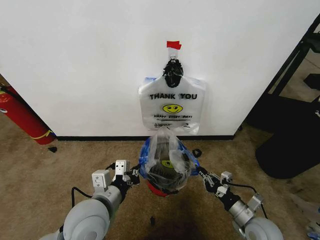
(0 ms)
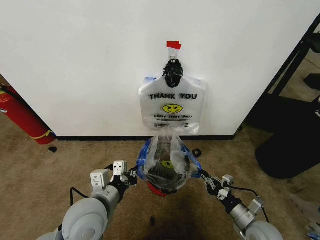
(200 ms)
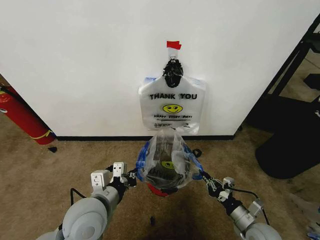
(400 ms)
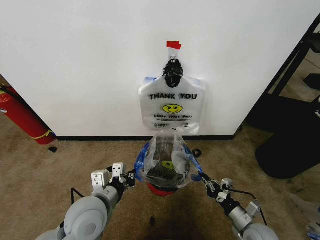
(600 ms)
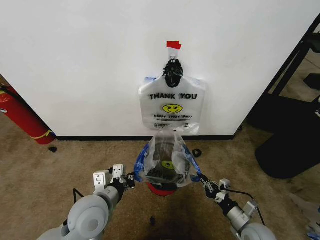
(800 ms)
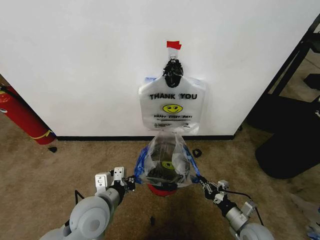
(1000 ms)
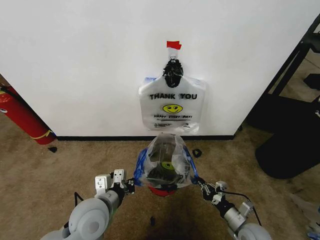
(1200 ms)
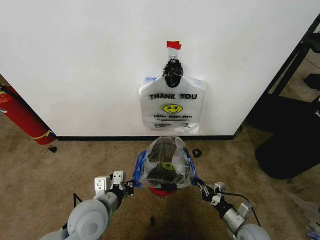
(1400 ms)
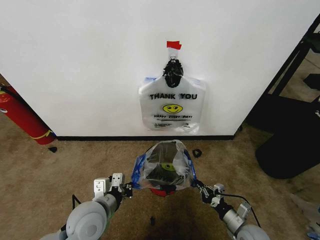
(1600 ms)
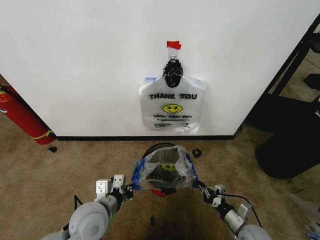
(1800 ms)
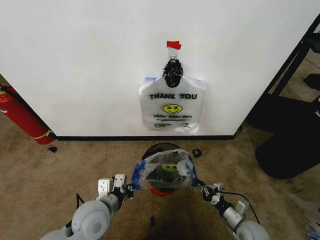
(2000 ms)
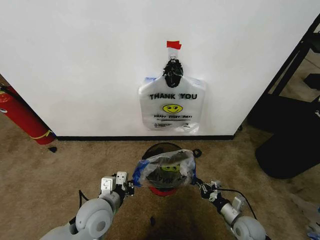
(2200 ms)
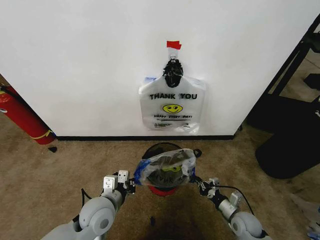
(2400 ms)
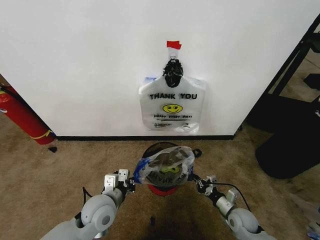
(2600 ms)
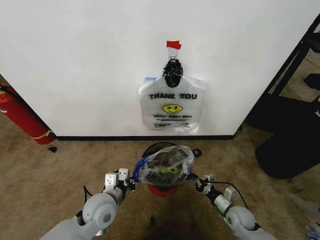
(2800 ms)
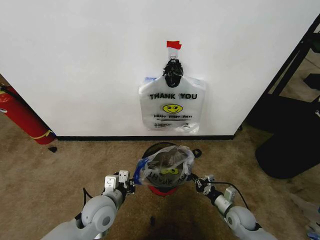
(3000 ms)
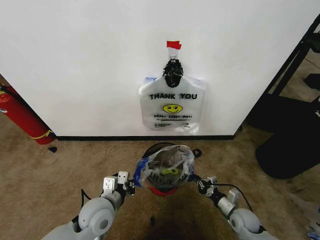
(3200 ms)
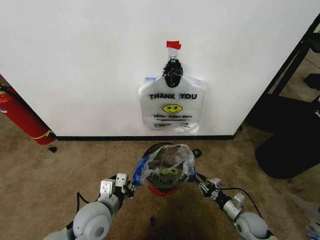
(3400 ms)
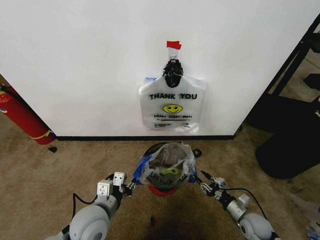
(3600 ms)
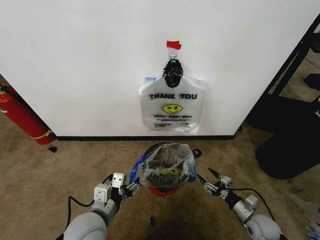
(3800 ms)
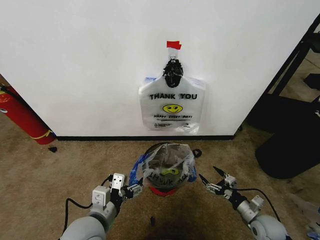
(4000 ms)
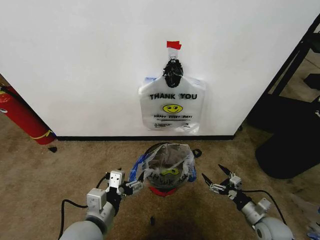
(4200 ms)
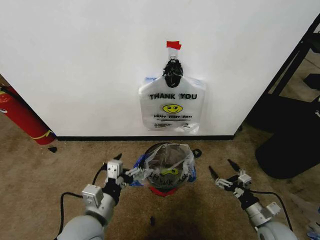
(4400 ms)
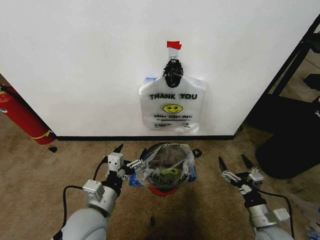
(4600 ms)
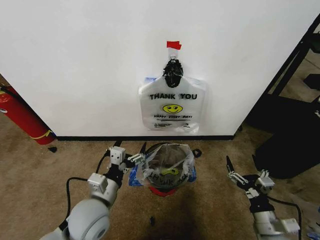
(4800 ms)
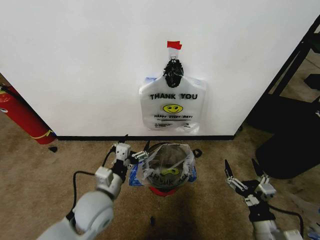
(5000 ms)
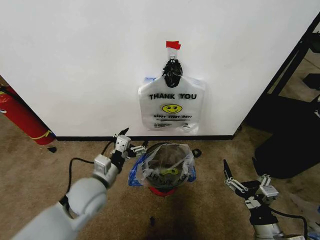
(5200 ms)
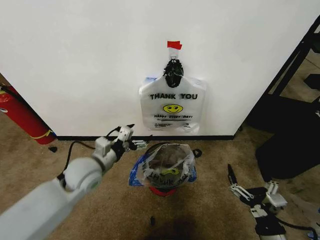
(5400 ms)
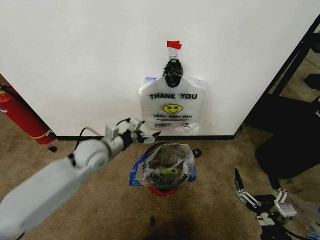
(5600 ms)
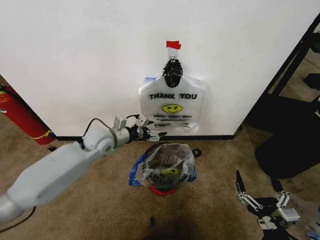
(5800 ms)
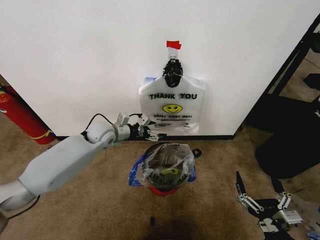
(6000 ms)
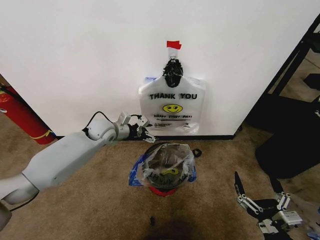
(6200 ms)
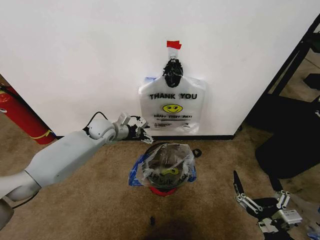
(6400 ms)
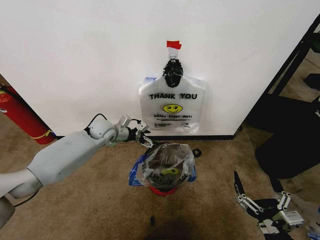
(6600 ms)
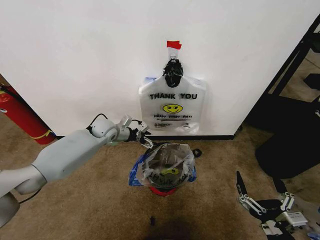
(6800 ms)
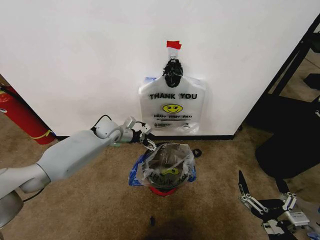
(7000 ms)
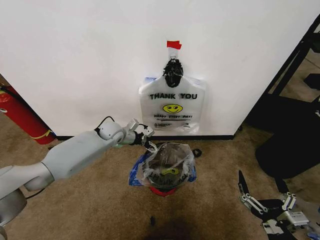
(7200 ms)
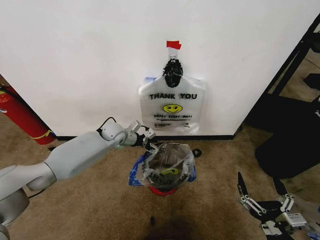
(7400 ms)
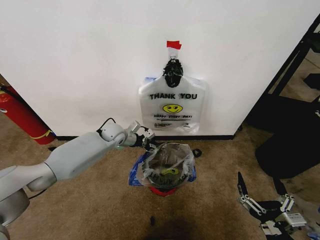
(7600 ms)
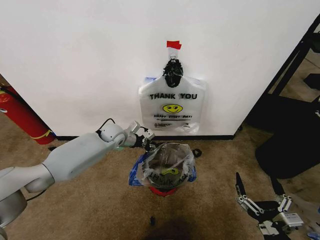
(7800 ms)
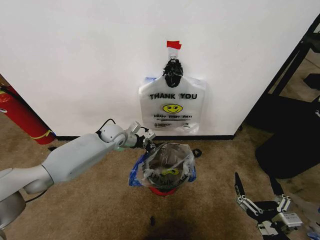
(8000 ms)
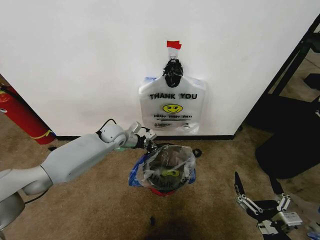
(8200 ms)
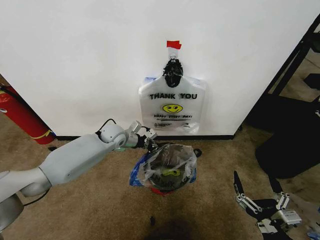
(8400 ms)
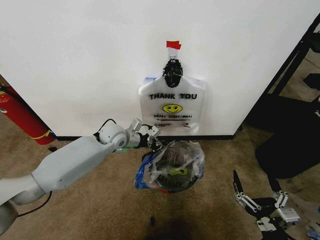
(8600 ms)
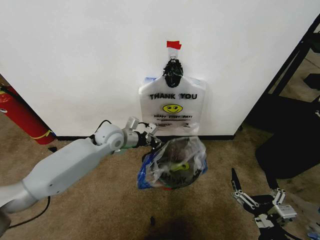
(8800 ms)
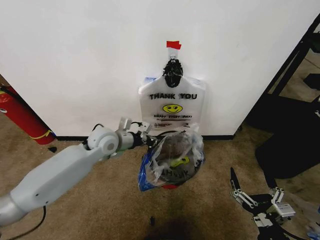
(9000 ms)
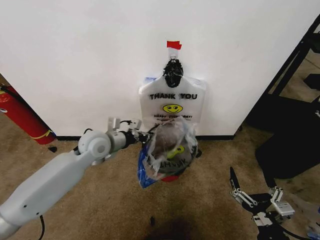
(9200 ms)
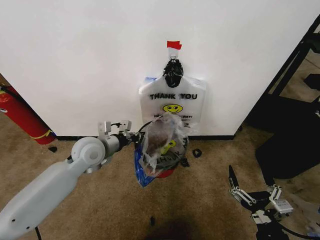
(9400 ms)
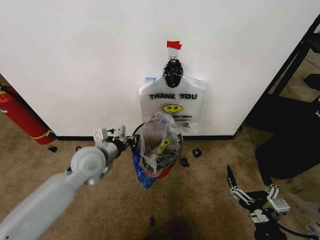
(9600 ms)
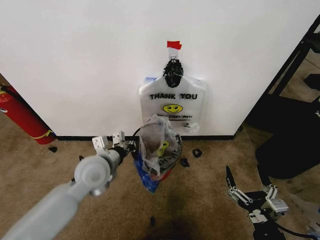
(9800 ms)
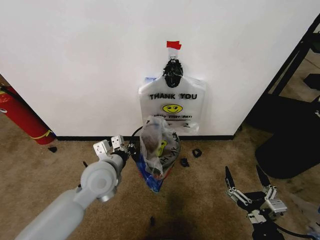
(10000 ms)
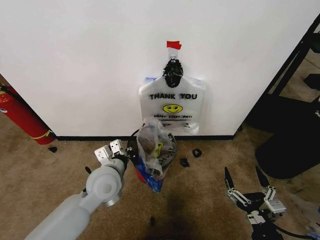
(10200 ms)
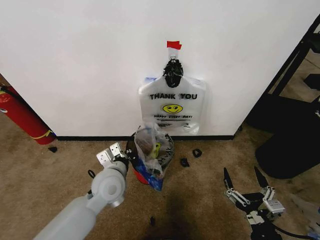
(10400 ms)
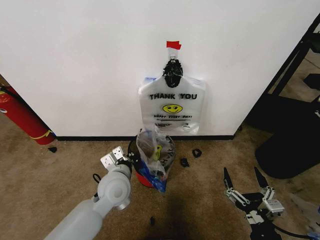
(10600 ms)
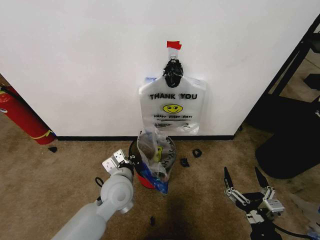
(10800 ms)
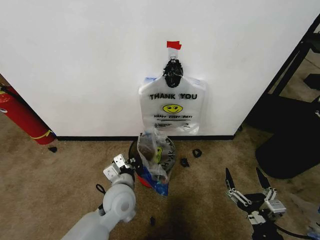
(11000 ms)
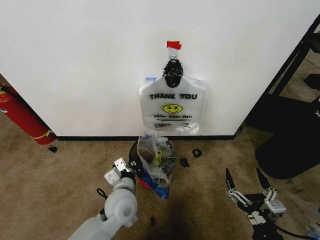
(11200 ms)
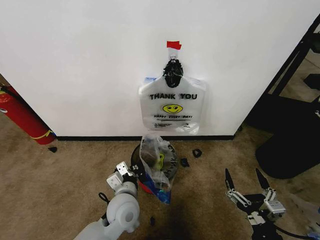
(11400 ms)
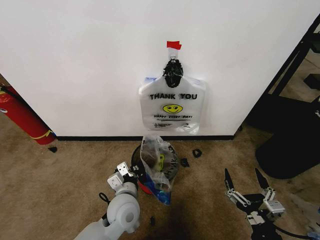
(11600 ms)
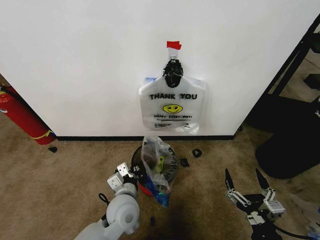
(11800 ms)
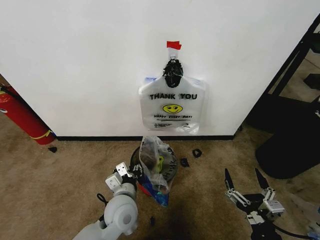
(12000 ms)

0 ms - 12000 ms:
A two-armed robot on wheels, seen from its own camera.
Task of the whole recording: Pick up the garbage bag from the wall and place it over the trash bin.
0 ms - 1600 ms: The grippers both shift downward by approximately 5 cm.
1600 ms - 3000 ms: The left gripper moves some 5 cm; the right gripper travels forward by approximately 5 cm.
3000 ms - 4400 ms: The left gripper is displaced backward and upward by approximately 10 cm, and opens its fingers. Meanwhile the right gripper goes some 10 cm upward, backward and to the right, and opens its fingers.
4400 ms - 6000 ms: The right gripper goes about 20 cm backward, upward and to the left. The left gripper is displaced forward by some 30 cm.
6000 ms - 7600 ms: The left gripper shifts roughly 10 cm forward and downward, and closes up.
7600 ms - 9000 ms: The left gripper goes approximately 15 cm backward and upward, and closes its fingers.
9000 ms - 10400 ms: The left gripper is displaced backward and downward by some 15 cm.
10400 ms - 12000 ms: The left gripper is displaced backward and downward by some 10 cm, and opens its fingers.

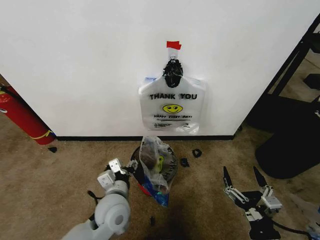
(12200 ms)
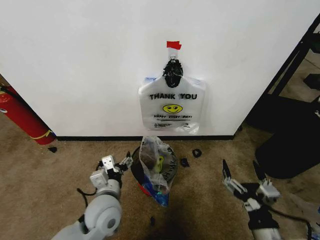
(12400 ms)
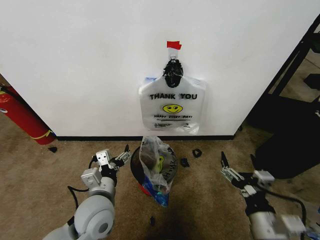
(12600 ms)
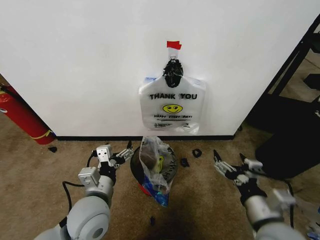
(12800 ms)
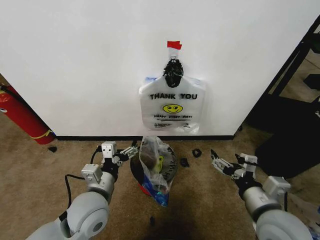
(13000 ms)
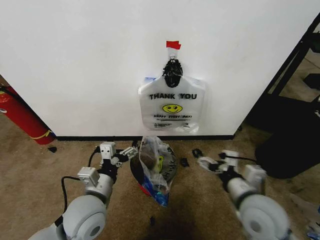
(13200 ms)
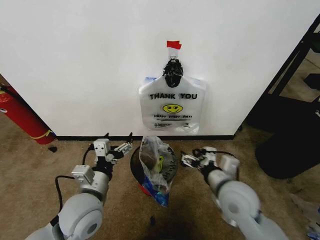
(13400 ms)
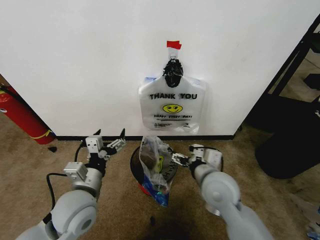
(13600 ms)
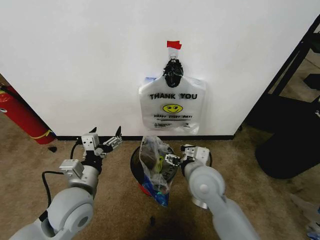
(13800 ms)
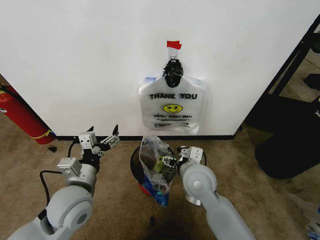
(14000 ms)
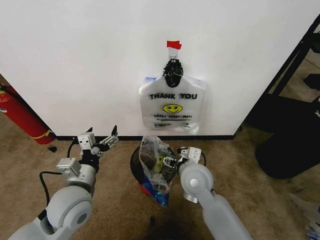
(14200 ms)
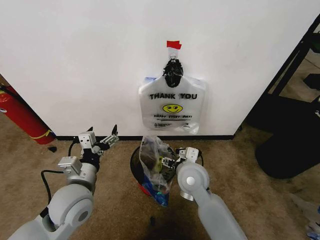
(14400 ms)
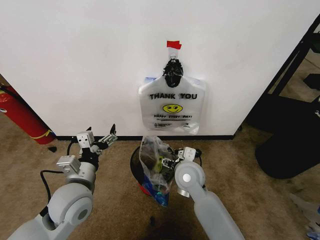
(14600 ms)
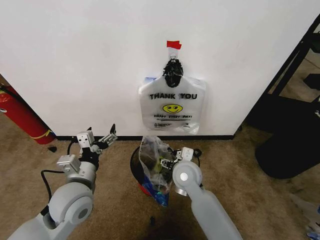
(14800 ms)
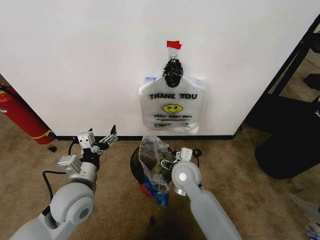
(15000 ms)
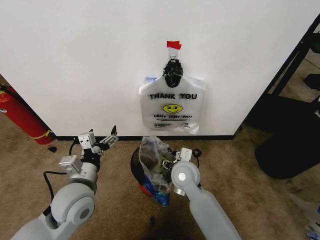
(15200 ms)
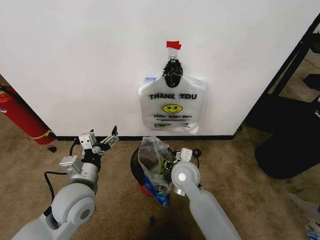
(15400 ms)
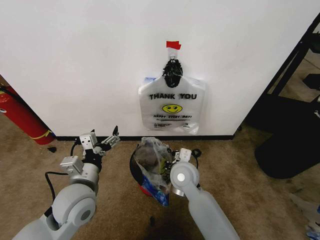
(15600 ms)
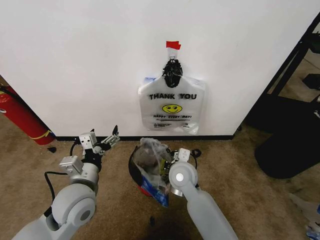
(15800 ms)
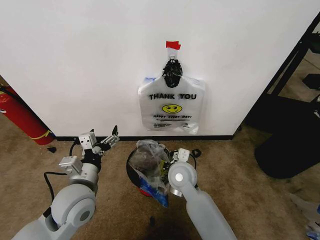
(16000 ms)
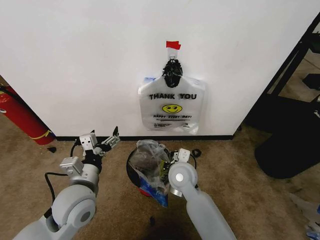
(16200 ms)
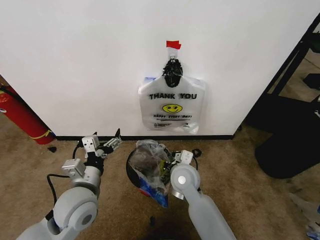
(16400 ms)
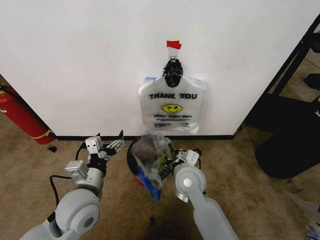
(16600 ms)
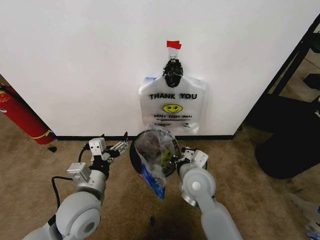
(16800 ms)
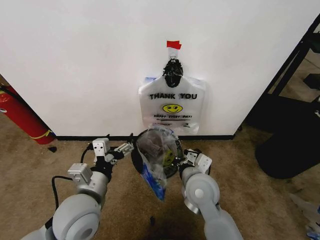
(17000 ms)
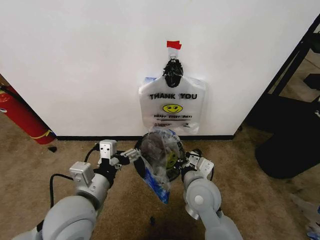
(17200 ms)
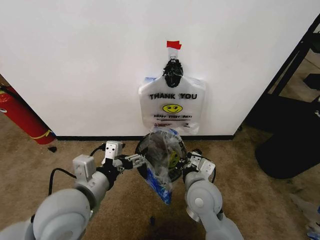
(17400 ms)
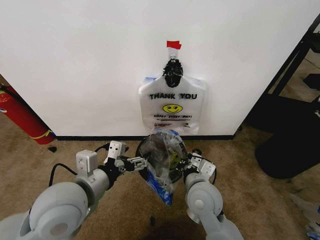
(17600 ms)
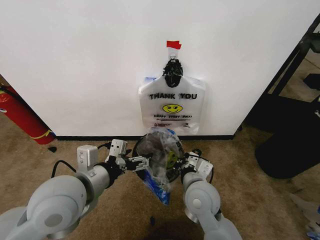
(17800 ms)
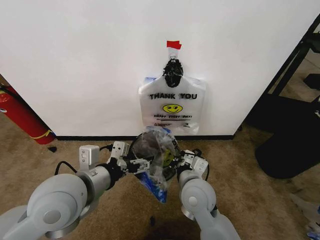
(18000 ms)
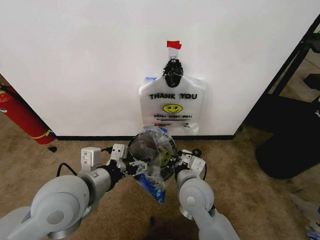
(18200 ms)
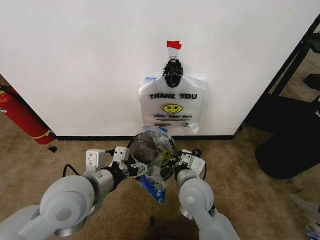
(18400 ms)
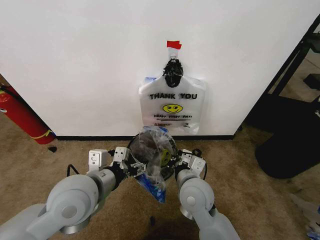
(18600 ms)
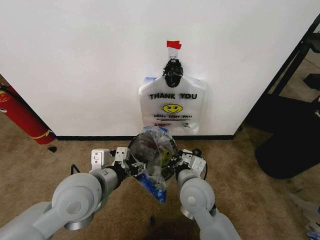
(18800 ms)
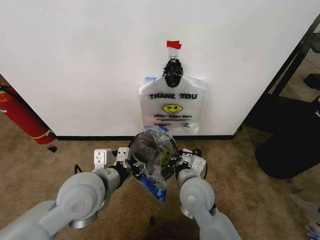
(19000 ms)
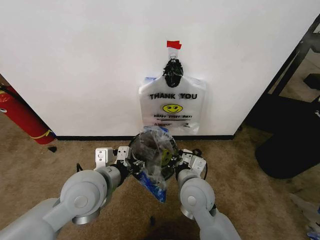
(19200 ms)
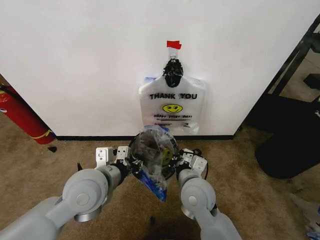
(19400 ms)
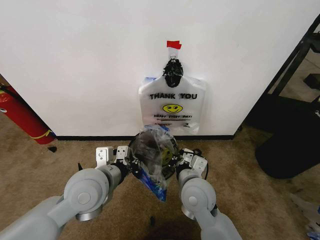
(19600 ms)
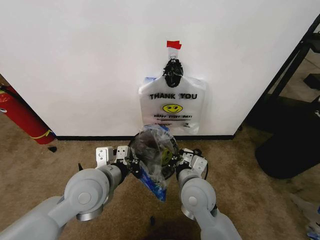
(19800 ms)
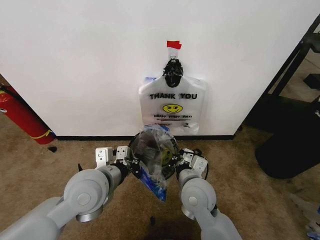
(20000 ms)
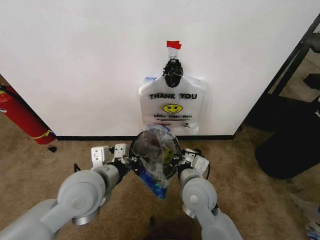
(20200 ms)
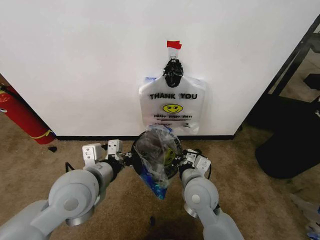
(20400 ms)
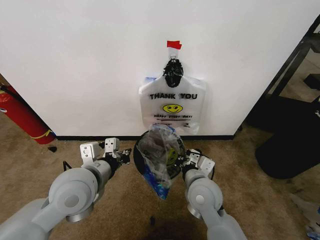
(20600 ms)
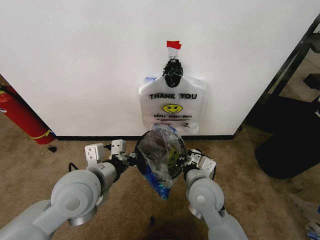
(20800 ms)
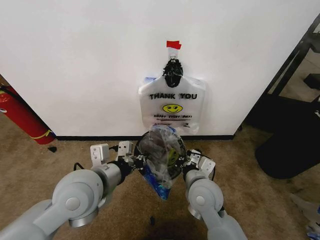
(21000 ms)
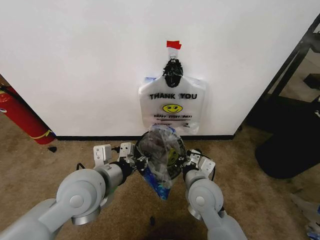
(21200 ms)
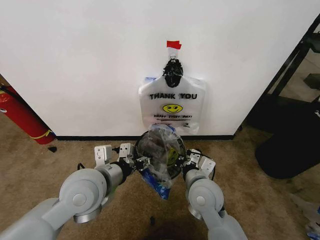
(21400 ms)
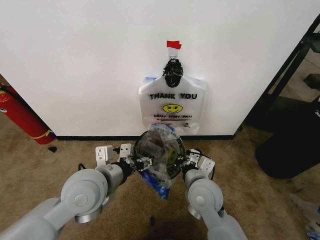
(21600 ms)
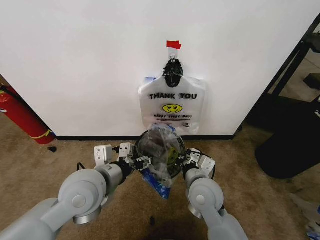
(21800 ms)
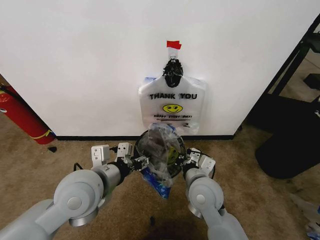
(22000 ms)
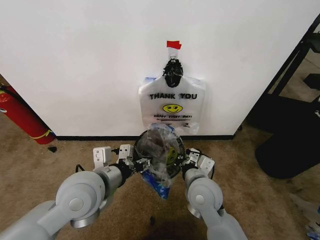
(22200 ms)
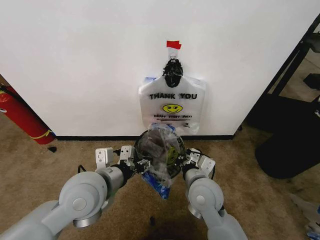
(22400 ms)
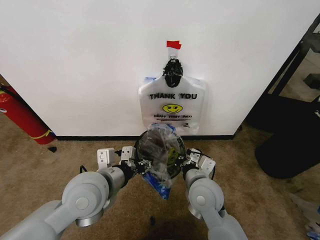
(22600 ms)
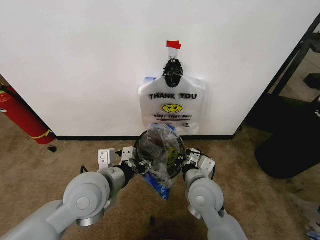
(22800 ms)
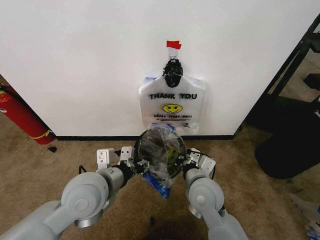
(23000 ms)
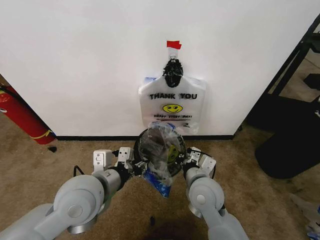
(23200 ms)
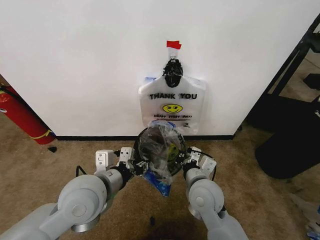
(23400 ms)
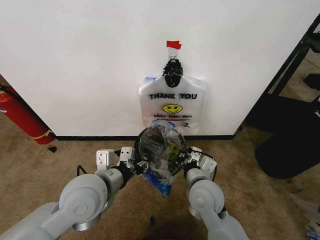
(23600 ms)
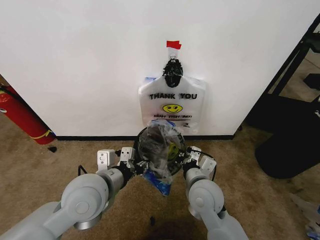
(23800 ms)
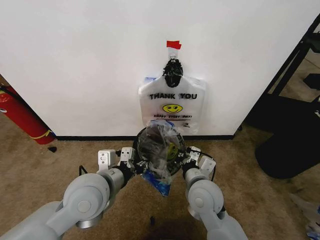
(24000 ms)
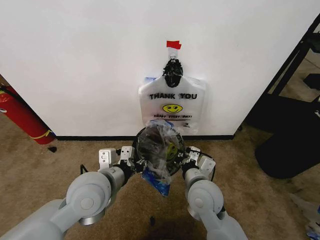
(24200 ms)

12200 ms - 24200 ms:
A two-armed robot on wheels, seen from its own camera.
Task of the whole recording: Pick up the garbage bag from the wall and place it over the trash bin.
12200 ms - 13800 ms: The left gripper is displaced to the left and upward by roughly 10 cm. Meanwhile the right gripper heads forward, to the left and upward, covering some 30 cm.
13800 ms - 15200 ms: The right gripper shifts some 5 cm downward and forward.
15200 ms - 16600 ms: The right gripper closes.
16600 ms - 18200 ms: The left gripper is displaced upward by approximately 10 cm.
18200 ms - 19800 ms: The left gripper moves about 5 cm, and closes.
19800 ms - 21200 ms: There are only small adjustments of the grippers.
21200 ms - 22600 ms: The two grippers keep their place.
22600 ms - 24200 ms: The grippers move only a little.
